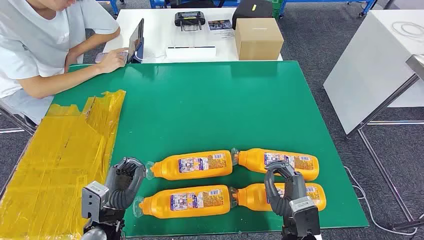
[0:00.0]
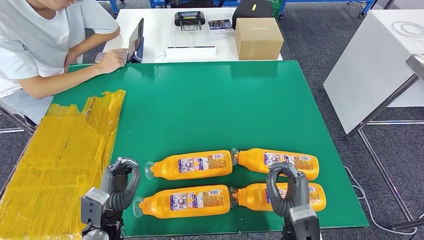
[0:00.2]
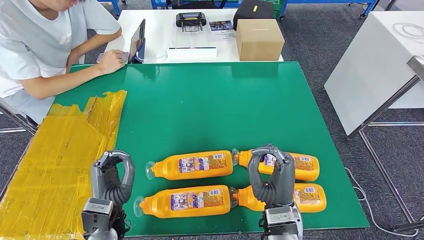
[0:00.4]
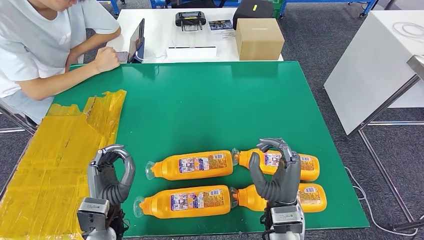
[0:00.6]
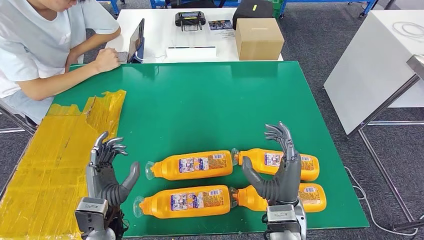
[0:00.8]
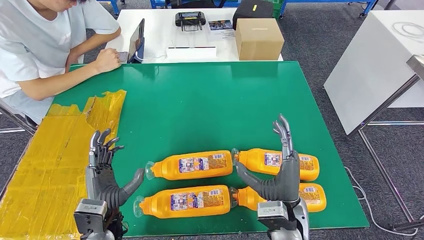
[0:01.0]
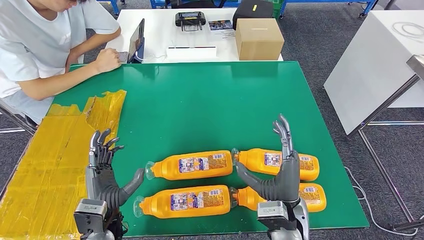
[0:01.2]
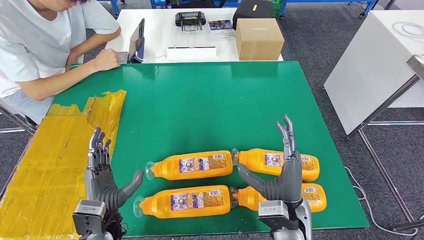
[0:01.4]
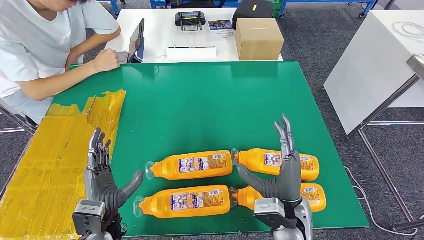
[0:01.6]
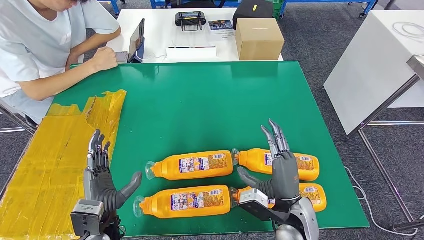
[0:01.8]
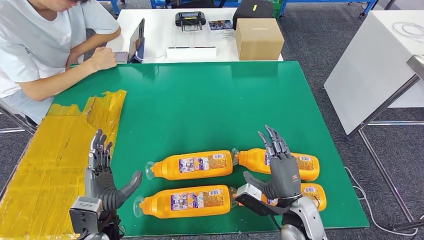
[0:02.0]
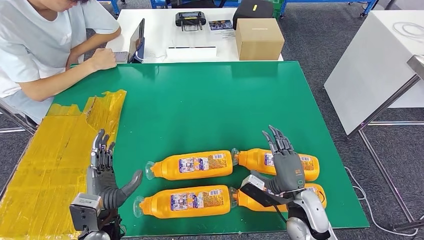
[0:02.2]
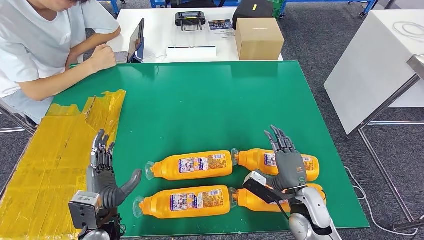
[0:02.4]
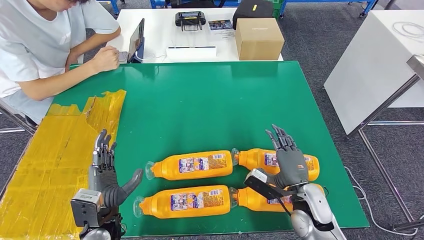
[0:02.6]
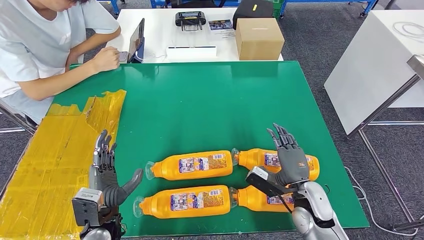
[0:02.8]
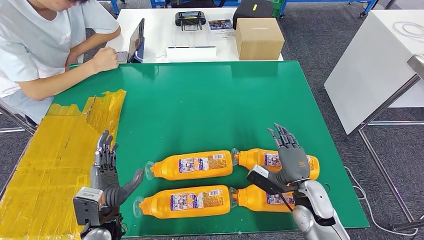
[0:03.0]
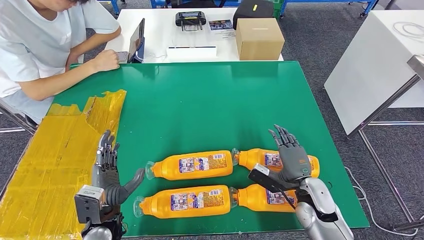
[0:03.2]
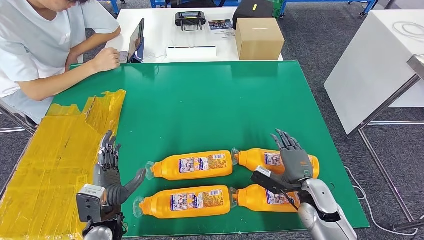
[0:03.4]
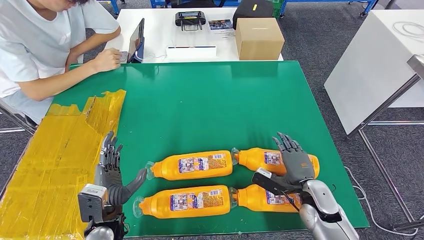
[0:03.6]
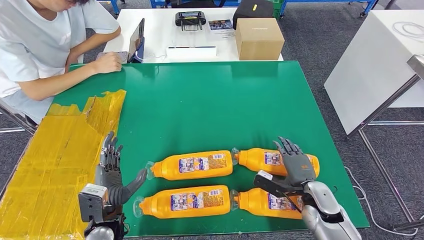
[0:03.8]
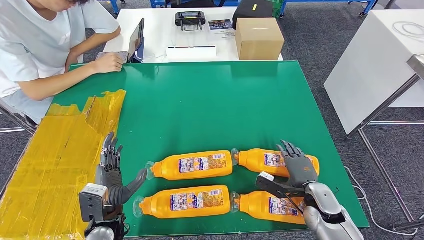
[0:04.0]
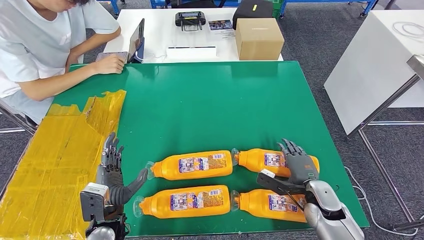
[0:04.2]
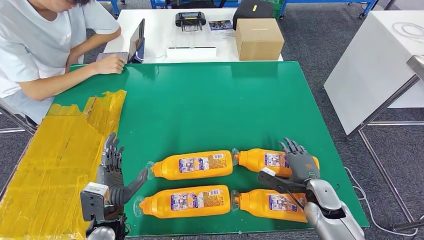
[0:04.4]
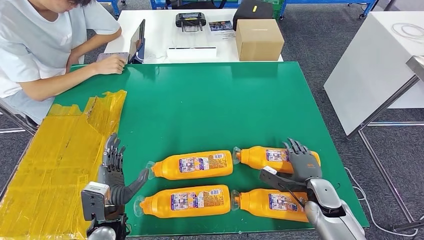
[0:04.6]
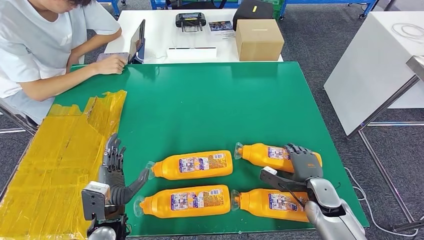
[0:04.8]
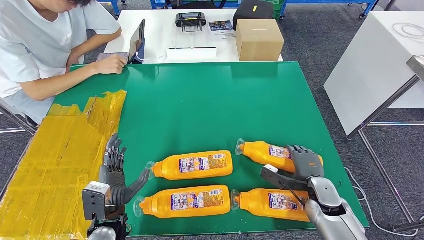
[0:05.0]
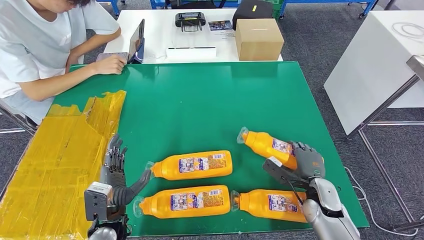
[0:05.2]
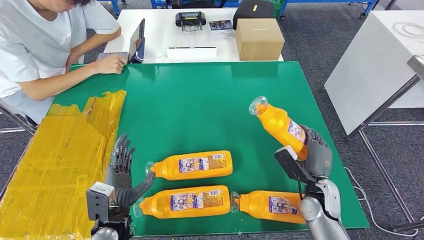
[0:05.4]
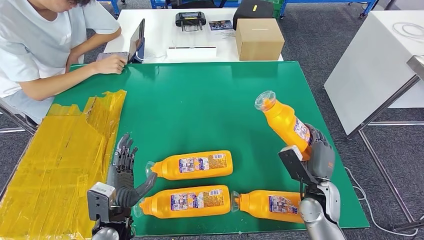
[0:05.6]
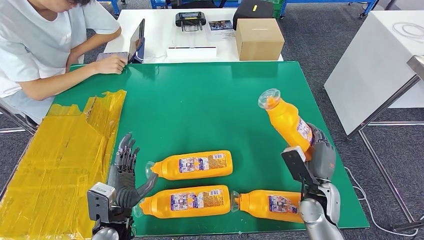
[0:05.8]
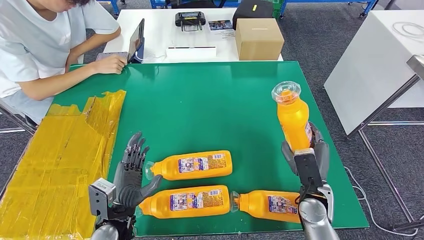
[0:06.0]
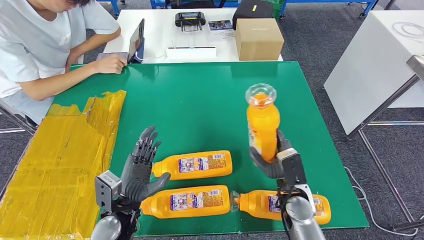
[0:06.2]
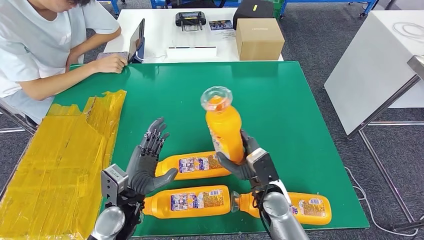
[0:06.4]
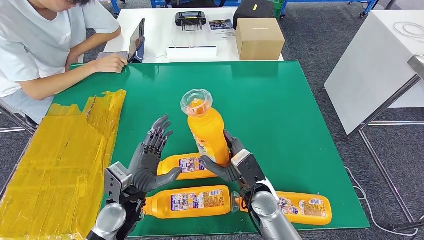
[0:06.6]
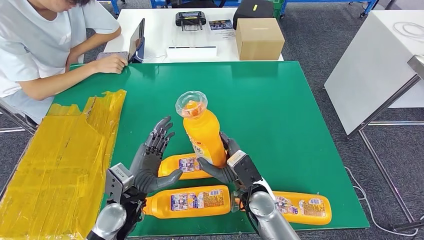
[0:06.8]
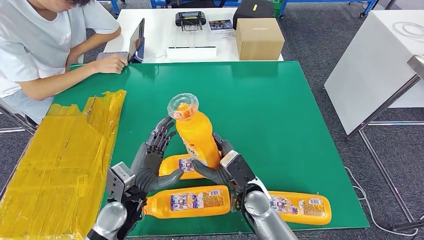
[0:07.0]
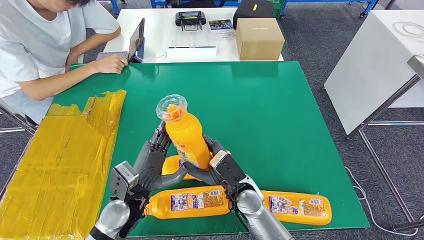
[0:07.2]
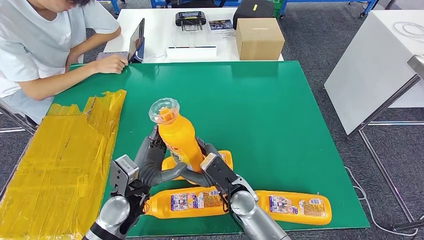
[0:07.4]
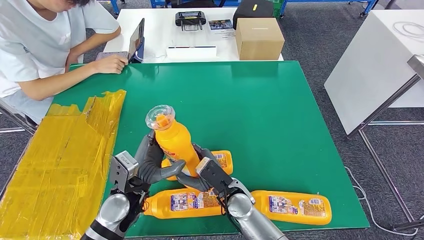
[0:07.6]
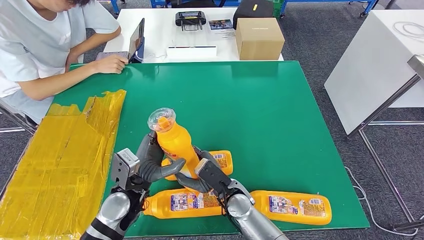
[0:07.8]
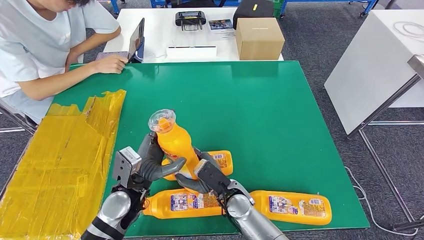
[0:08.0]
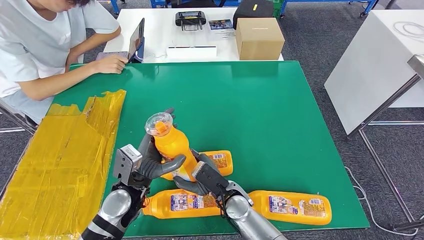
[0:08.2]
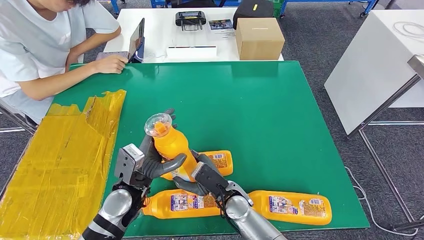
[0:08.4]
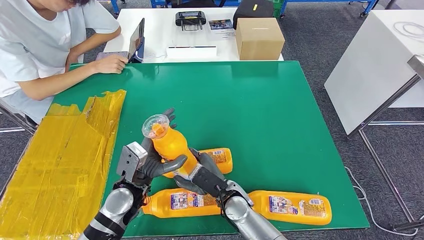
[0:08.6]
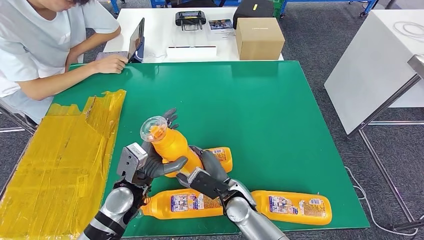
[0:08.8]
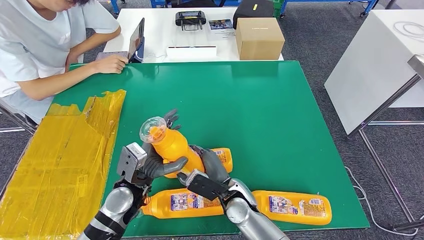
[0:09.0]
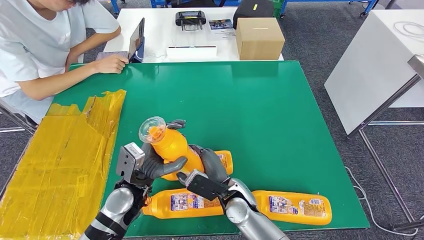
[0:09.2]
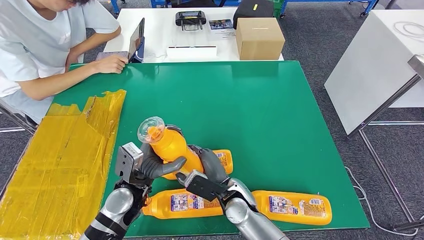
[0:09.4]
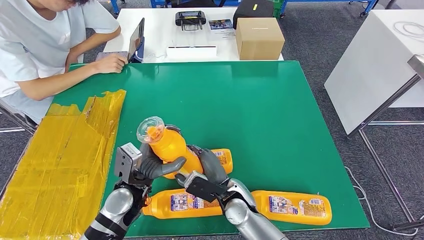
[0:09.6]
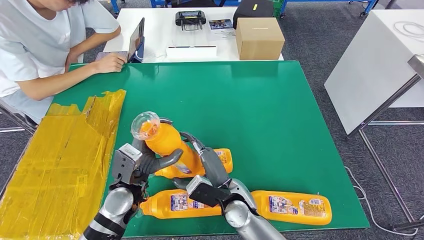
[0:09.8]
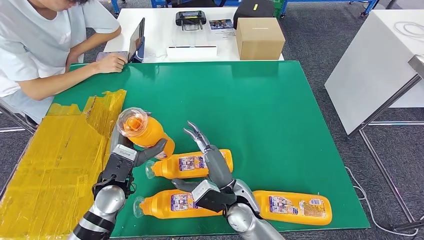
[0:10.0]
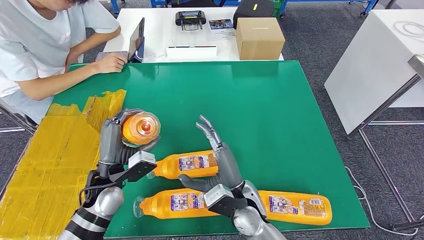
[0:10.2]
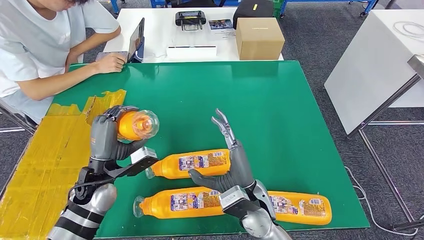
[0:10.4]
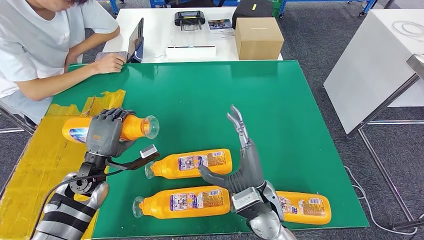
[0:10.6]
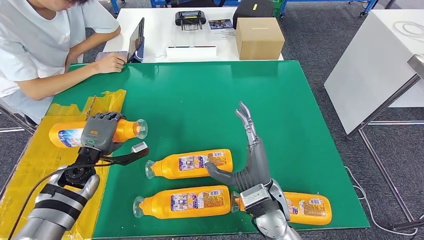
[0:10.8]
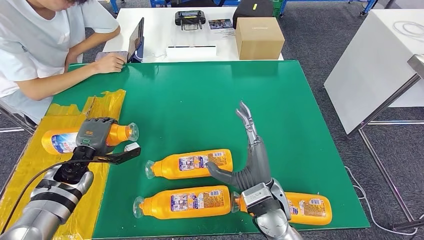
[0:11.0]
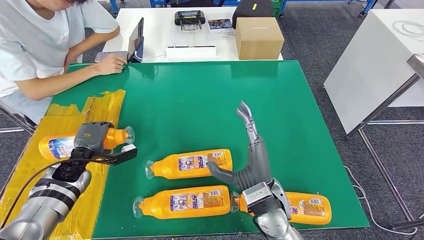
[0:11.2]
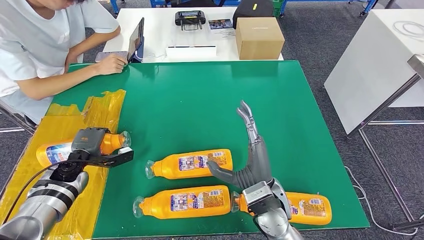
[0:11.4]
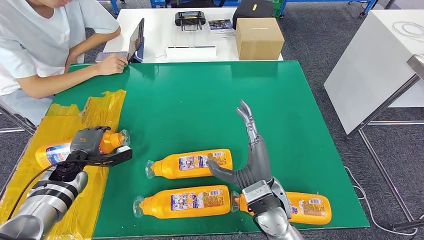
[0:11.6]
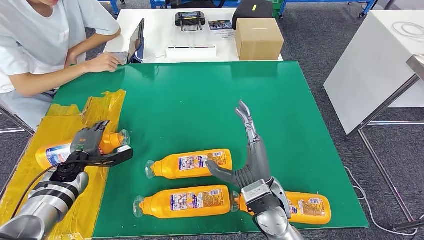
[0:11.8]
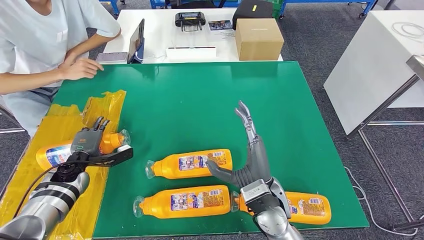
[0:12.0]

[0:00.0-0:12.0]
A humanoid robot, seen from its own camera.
Step, 0:00.0 to 0:07.6: Take the fast-moving consumer goods bottle from the table.
0:01.6 to 0:03.0: The right hand is displaced to the right and downward by some 10 cm.
0:03.0 to 0:04.4: The right hand shifts by some 5 cm.
0:04.4 to 0:06.0: The right hand ends up some 5 cm from where it was.
0:06.0 to 0:07.6: The left hand is displaced forward by roughly 5 cm. The right hand goes approximately 20 cm to the left.
0:07.6 to 0:09.0: The hands move only a little.
0:09.0 to 0:10.4: The left hand goes approximately 10 cm to the left; the right hand moves upward, about 5 cm.

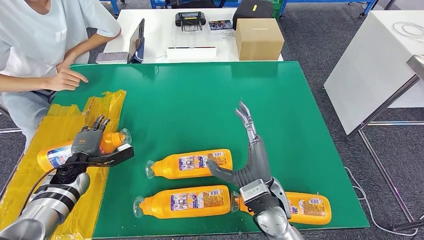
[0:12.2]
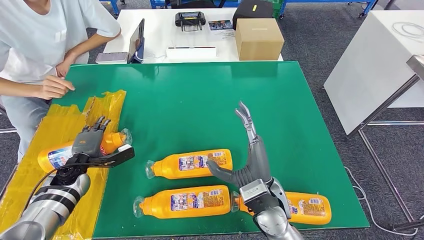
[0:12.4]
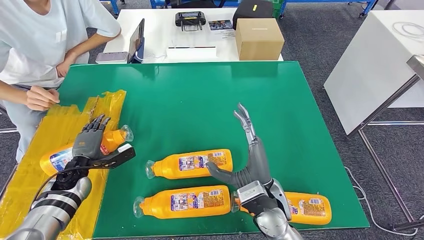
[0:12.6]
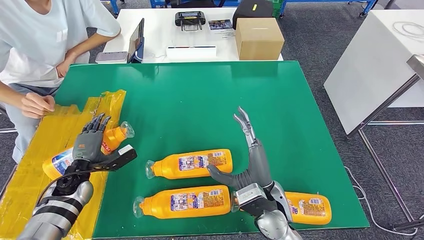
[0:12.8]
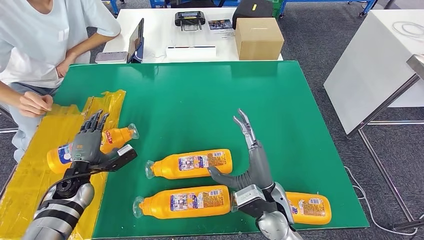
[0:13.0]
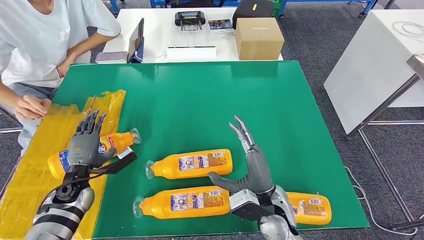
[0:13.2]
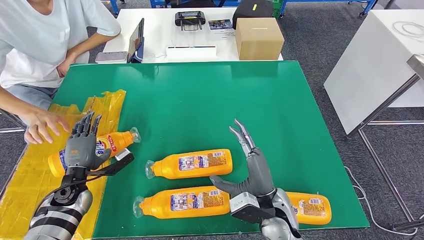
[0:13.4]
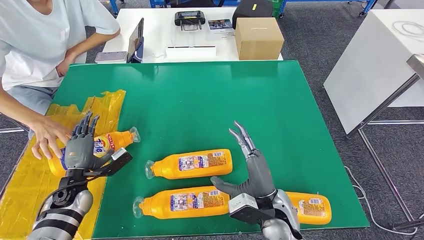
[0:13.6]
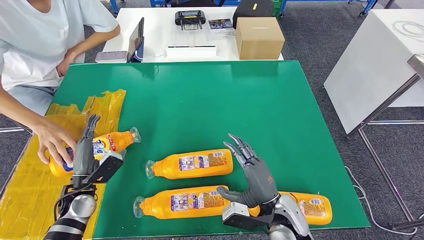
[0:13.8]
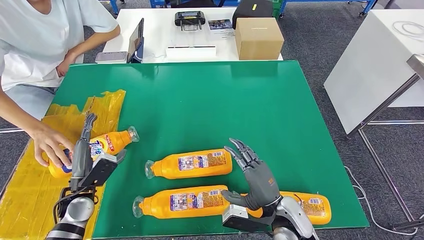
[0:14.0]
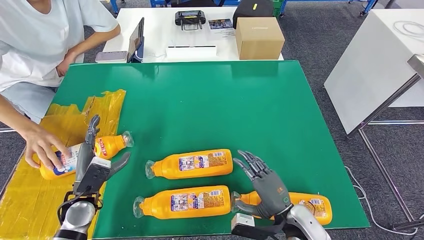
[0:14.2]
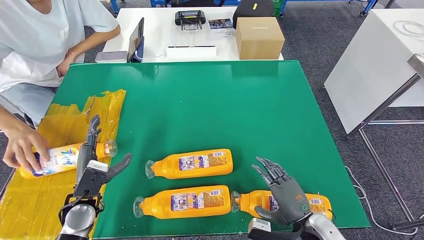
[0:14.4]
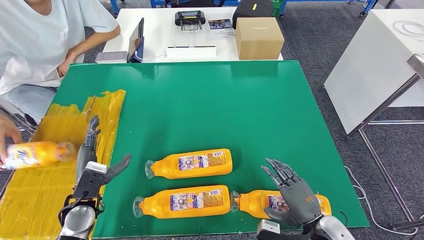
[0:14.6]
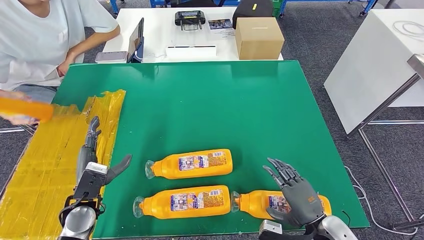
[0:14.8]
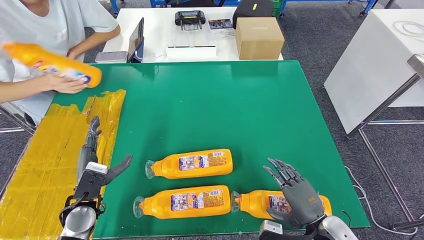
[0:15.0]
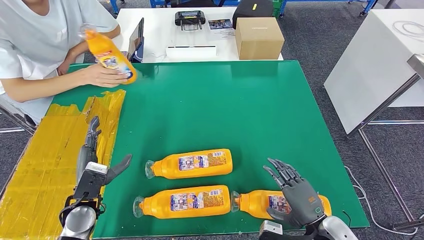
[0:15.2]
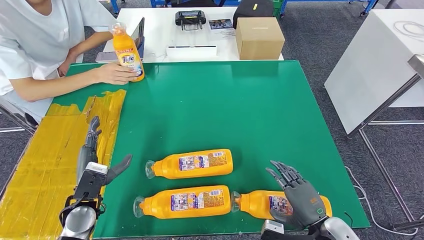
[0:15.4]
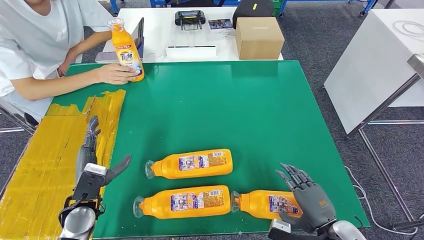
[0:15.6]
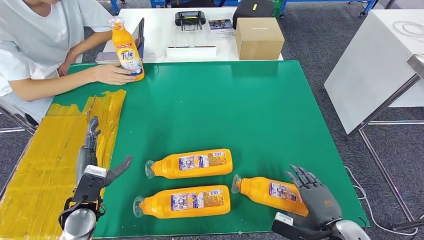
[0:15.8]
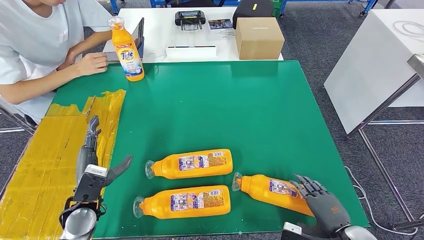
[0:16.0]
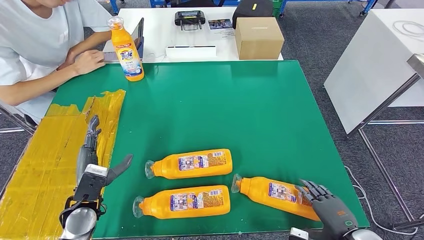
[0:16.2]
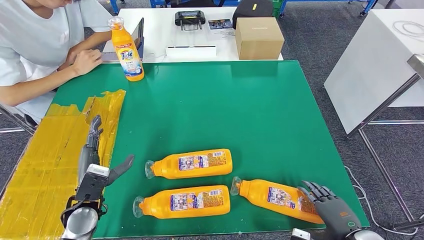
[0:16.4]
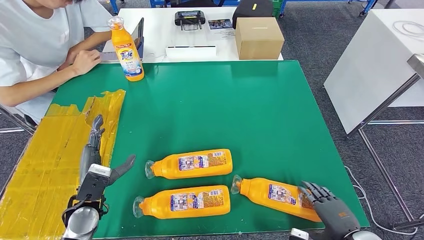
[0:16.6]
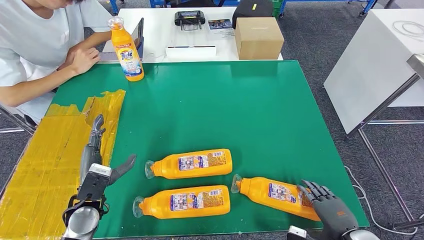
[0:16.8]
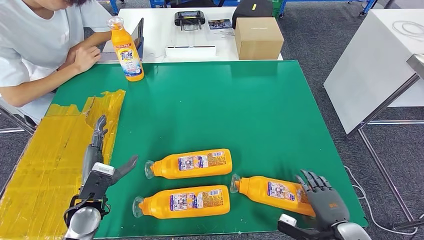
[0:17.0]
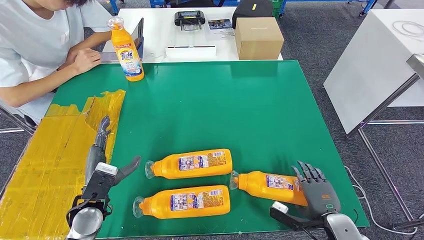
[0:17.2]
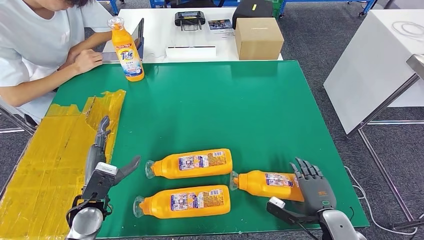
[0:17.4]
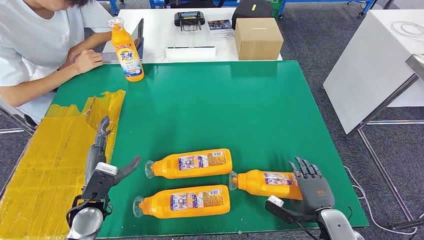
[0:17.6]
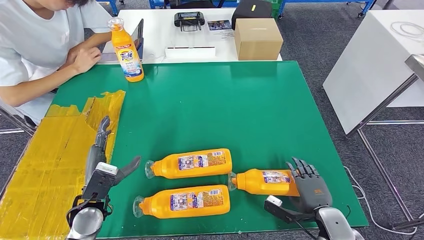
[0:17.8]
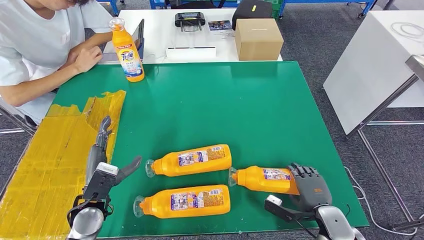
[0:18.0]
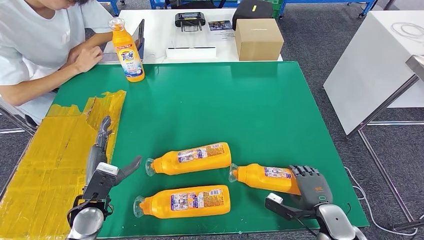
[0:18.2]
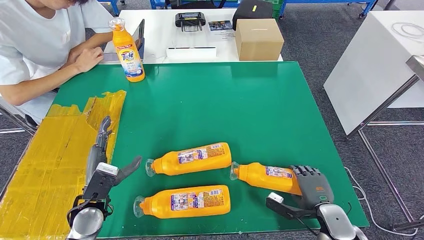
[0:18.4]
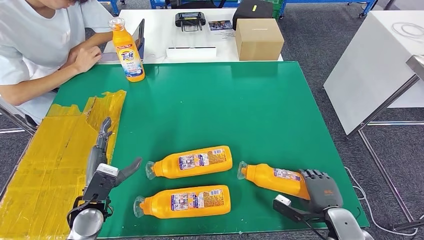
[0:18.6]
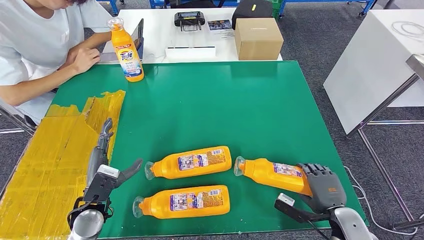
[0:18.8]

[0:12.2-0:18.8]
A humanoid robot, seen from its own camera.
0:12.2 to 0:13.8: The left hand goes about 10 cm backward, while the right hand moves about 5 cm.
0:13.8 to 0:15.4: The right hand moves to the right and backward, about 15 cm, while the left hand ends up about 5 cm from where it was.
0:17.2 to 0:18.8: The hands make only small movements.
